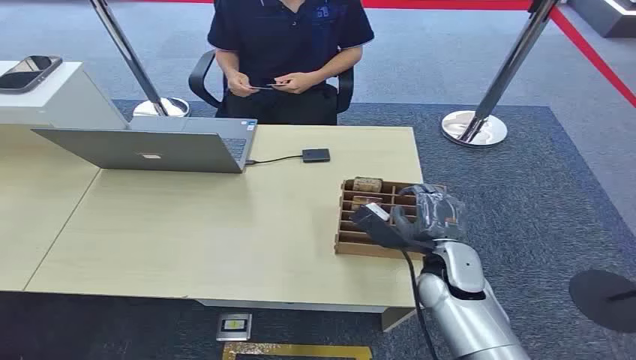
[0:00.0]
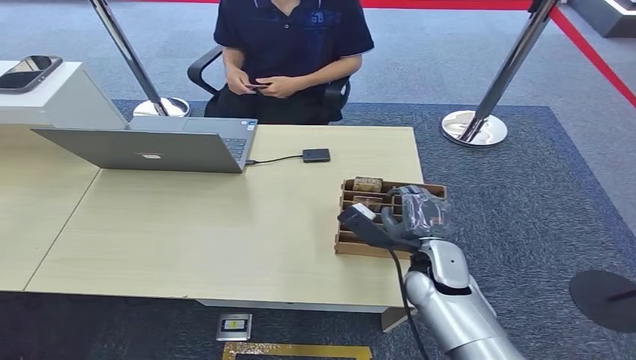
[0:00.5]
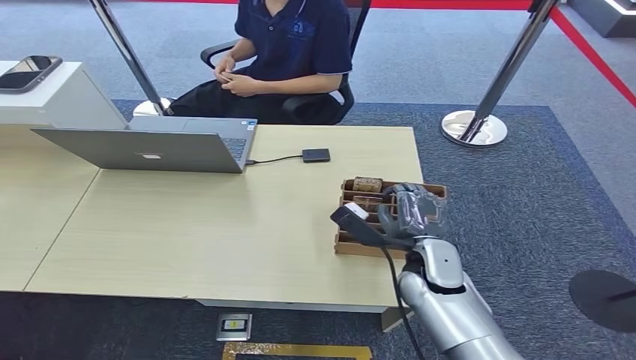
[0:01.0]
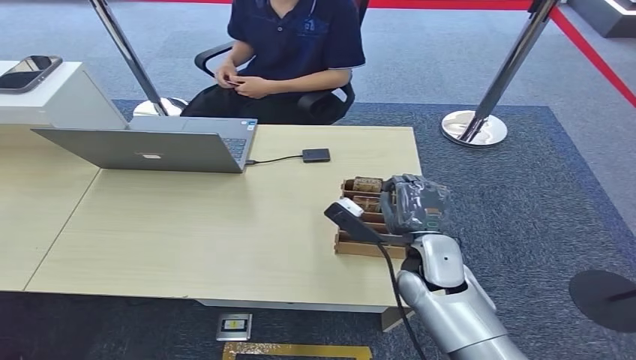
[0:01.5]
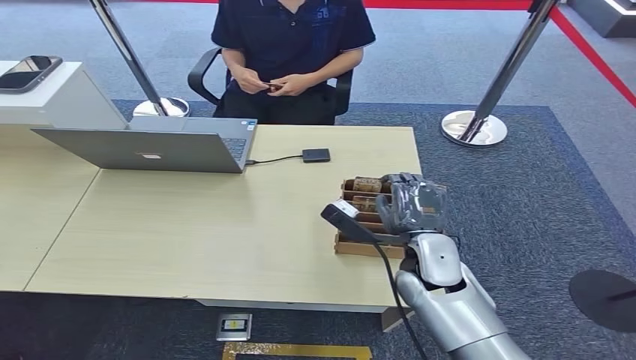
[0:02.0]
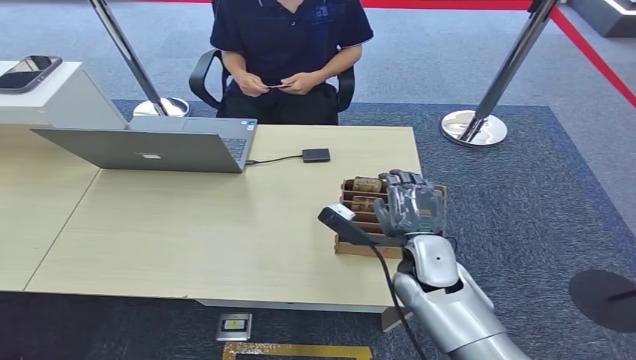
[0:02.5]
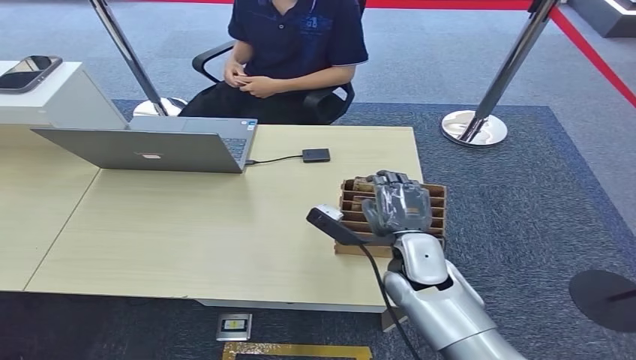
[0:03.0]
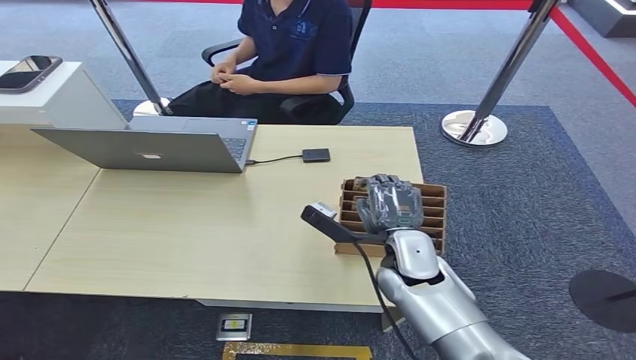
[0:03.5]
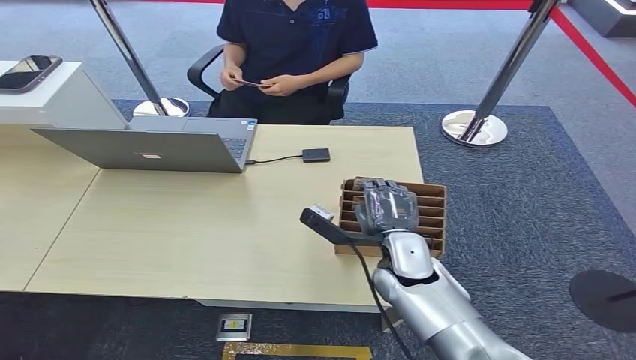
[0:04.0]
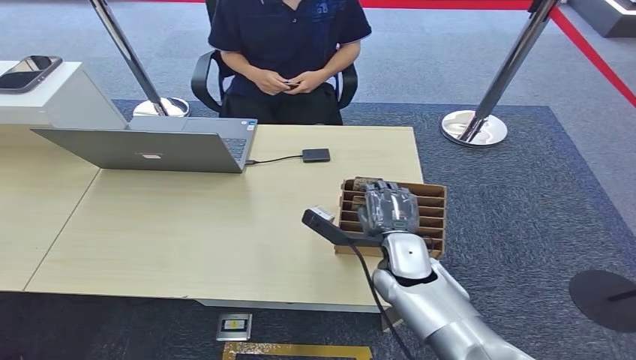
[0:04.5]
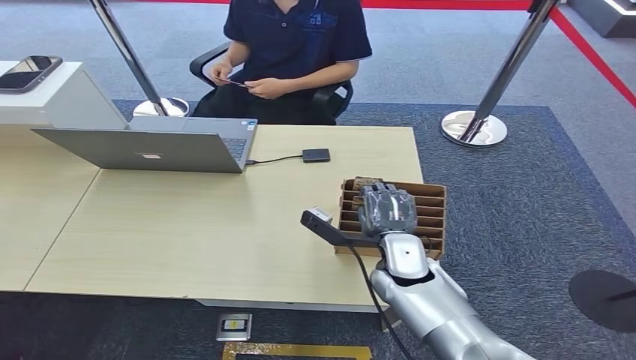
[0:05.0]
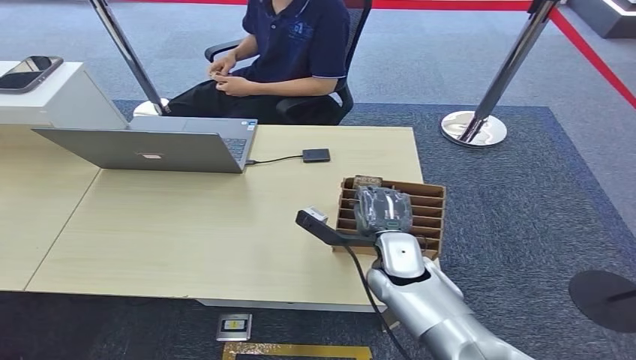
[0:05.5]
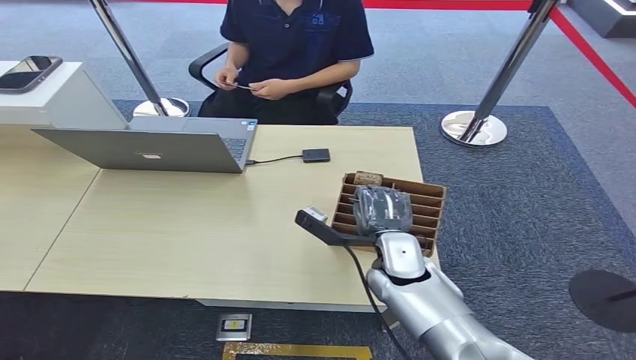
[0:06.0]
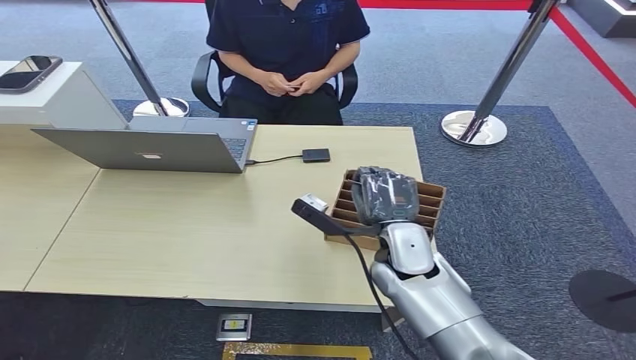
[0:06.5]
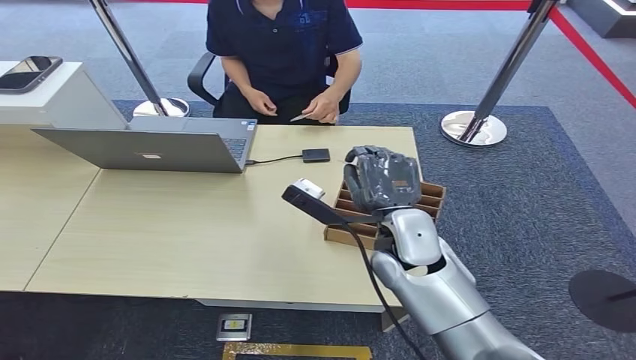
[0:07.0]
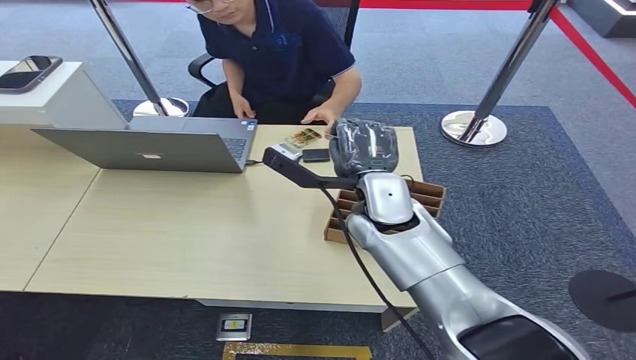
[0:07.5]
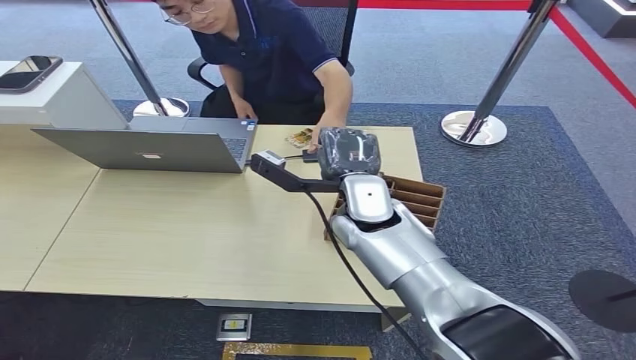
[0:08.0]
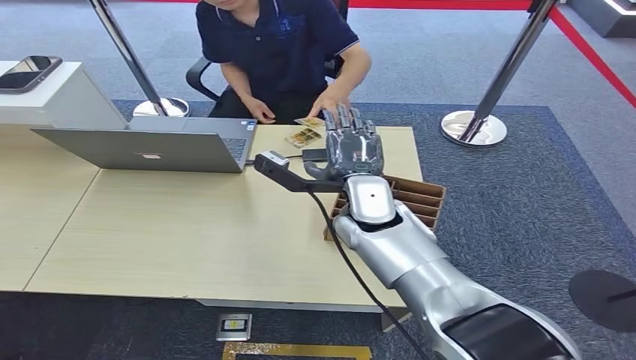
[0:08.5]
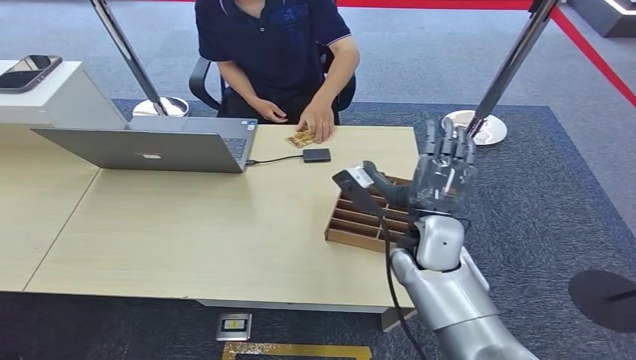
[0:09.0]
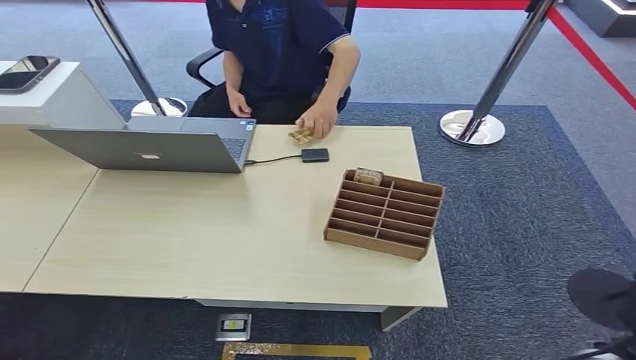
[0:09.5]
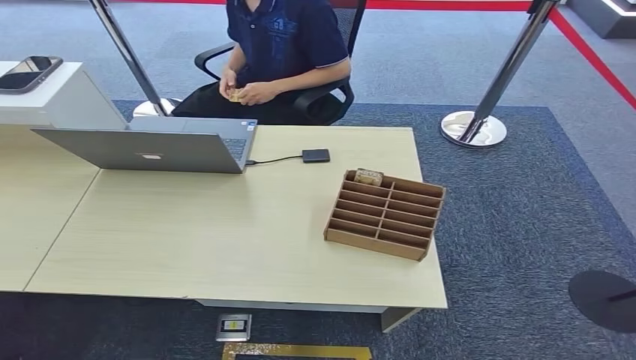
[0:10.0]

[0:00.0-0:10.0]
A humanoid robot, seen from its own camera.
Task of the whole recording: Pick up the card and hand it over to the target person.
Step, 0:00.0 to 0:07.0: Pick up the key card from the card box.
Step, 0:07.5 to 0:10.0: Hand the key card to the target.
0:02.0 to 0:06.0: There are only small adjustments of the hands.
0:06.0 to 0:08.0: The right hand travels upward and forward by about 10 cm.
0:08.0 to 0:10.0: The right hand is displaced backward, to the right and downward by some 50 cm.
